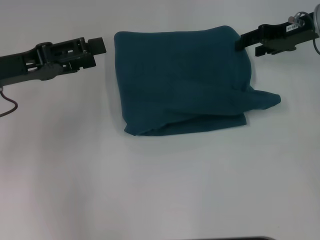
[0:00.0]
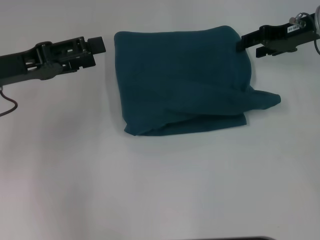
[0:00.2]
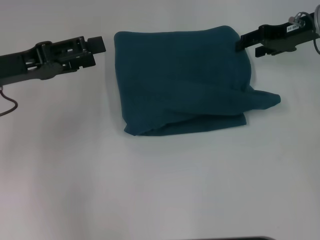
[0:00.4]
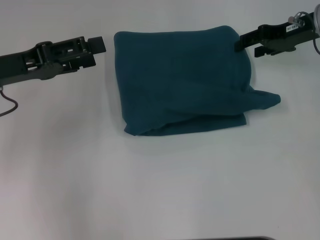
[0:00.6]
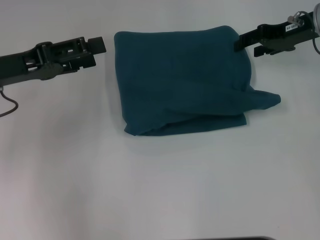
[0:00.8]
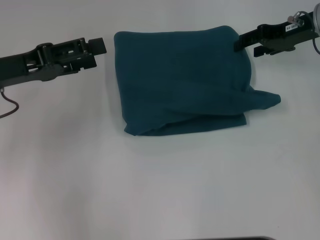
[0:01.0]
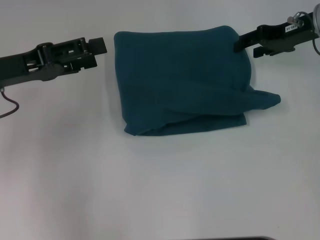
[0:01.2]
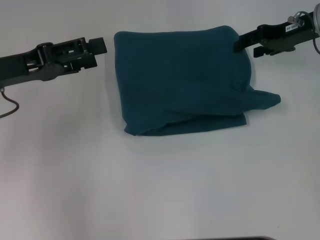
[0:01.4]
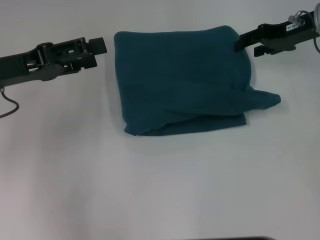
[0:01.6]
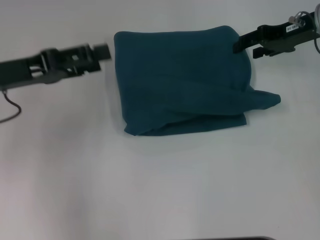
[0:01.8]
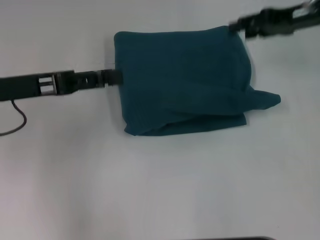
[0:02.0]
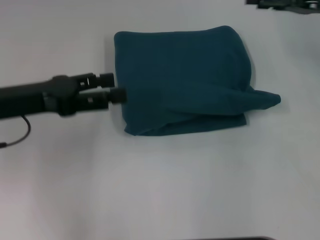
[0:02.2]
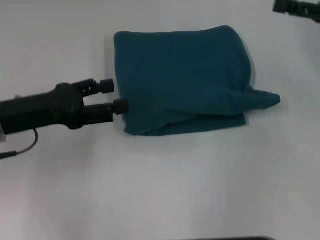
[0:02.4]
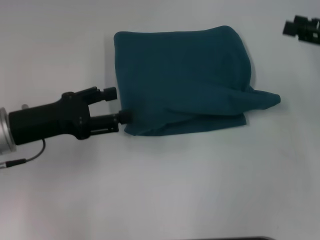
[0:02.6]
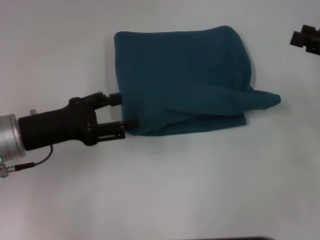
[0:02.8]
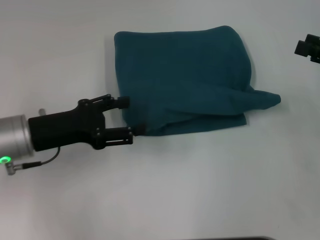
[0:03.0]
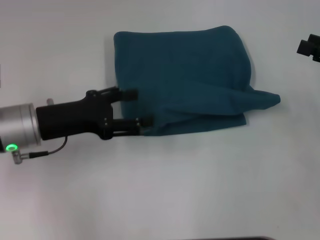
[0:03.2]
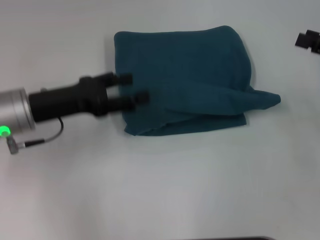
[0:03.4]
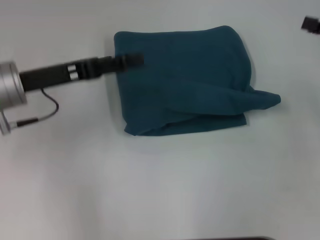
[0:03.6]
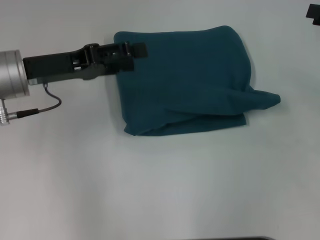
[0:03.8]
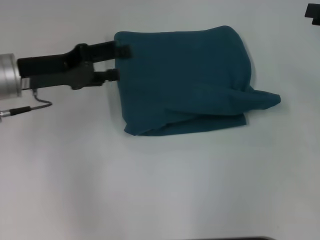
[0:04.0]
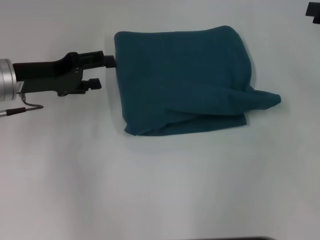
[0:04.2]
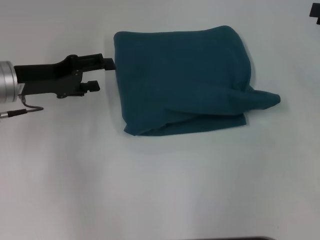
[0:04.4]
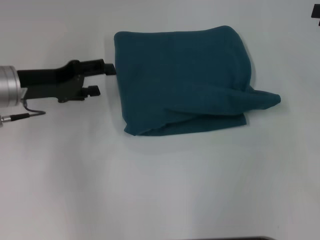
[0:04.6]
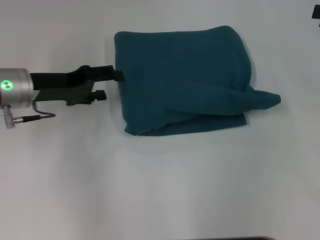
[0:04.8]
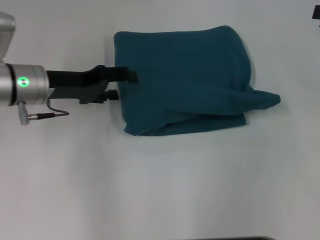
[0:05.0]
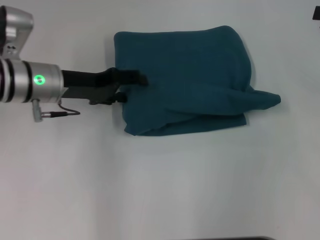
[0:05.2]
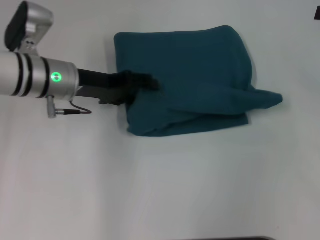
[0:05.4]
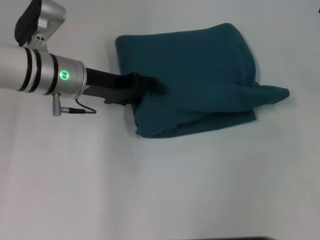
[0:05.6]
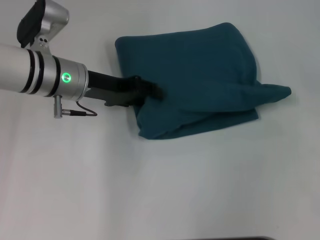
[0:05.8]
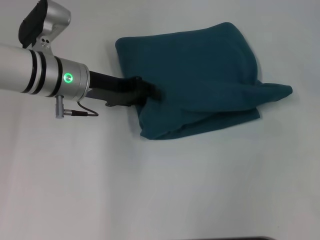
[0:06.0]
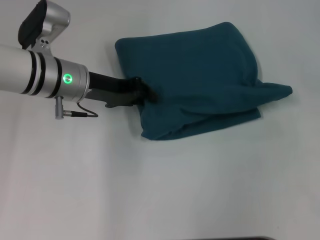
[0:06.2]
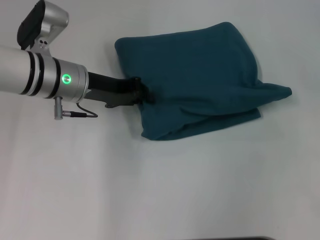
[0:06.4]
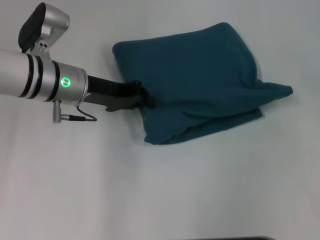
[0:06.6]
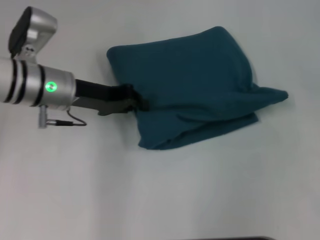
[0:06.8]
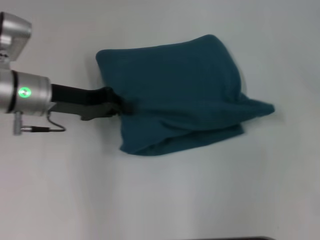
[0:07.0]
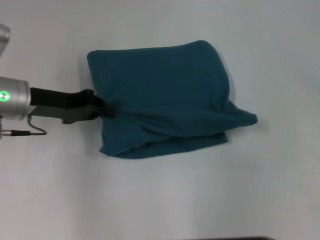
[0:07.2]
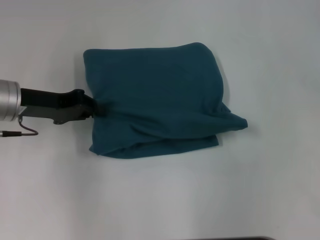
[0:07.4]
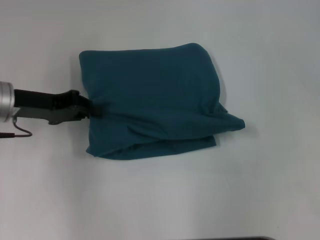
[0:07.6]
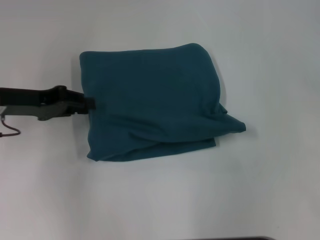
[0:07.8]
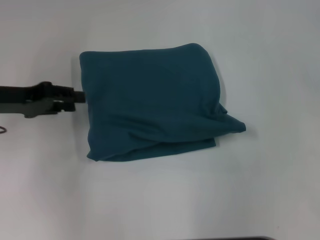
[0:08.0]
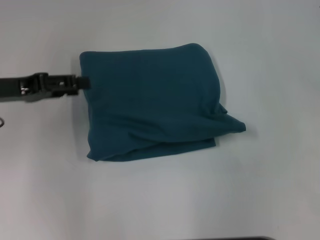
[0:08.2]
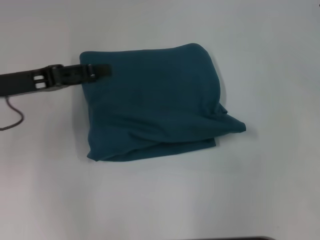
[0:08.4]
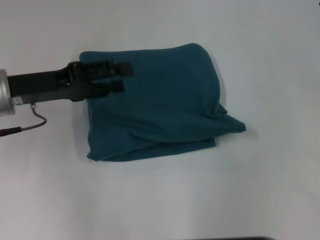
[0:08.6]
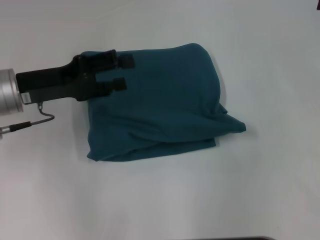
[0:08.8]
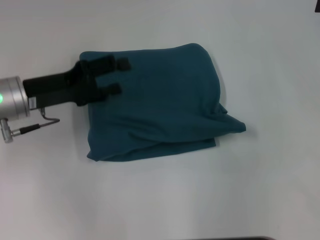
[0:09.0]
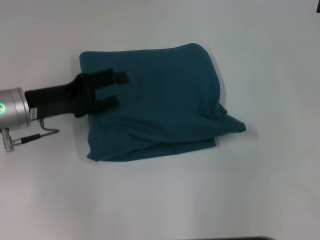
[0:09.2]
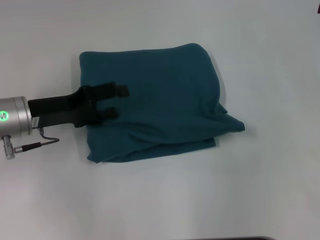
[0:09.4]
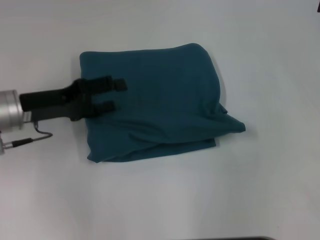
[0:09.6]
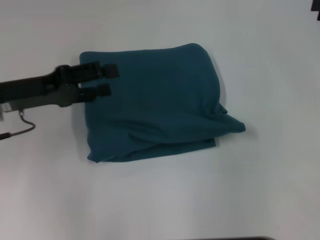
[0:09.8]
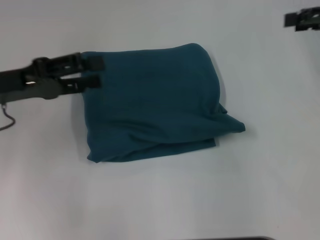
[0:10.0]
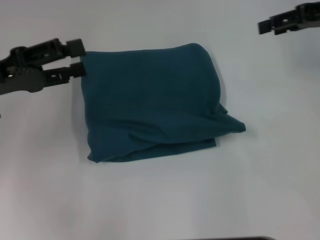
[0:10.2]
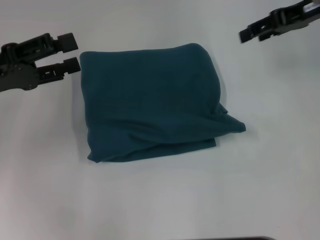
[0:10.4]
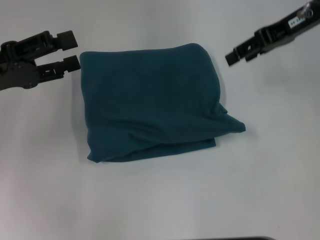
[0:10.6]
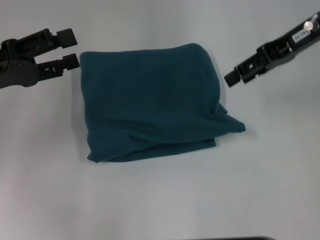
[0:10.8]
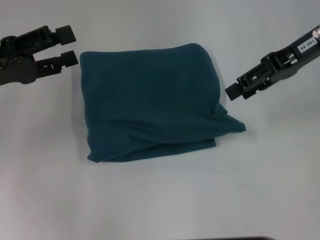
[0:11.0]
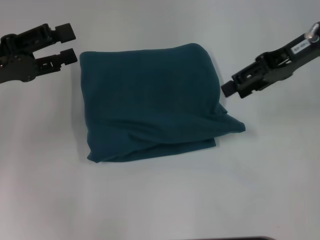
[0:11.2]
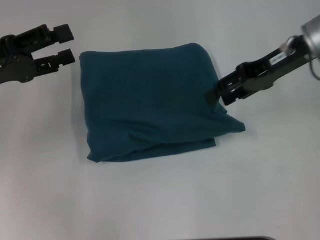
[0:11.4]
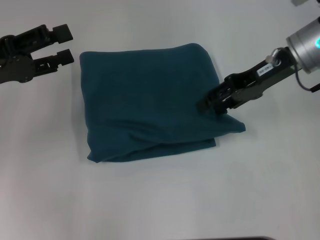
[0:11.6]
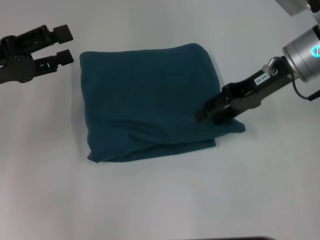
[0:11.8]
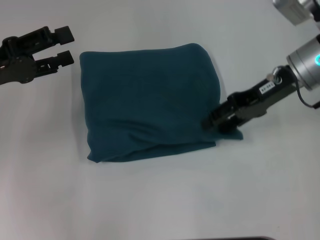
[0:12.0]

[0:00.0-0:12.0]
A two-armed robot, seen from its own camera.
0:00.0 to 0:01.6: Both grippers stay about where they are.
0:01.6 to 0:03.0: The left gripper moves downward, some 5 cm. Meanwhile the right gripper shifts about 15 cm backward and to the right.
0:03.0 to 0:04.4: The grippers both shift forward by about 5 cm.
0:04.4 to 0:06.0: The left gripper travels to the right by approximately 10 cm.
0:06.0 to 0:07.6: The left gripper shifts some 10 cm to the left, and closes.
0:07.6 to 0:09.0: The left gripper opens up.
0:09.0 to 0:10.4: The right gripper travels to the left and forward by approximately 15 cm. Meanwhile the left gripper moves to the left and upward, some 10 cm.
0:10.4 to 0:12.0: The right gripper travels downward by about 5 cm.

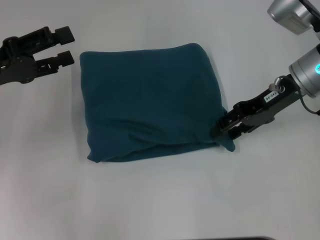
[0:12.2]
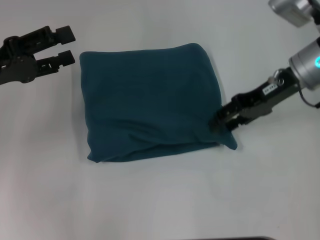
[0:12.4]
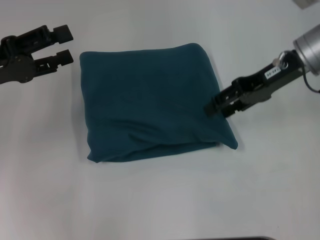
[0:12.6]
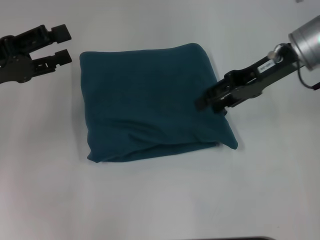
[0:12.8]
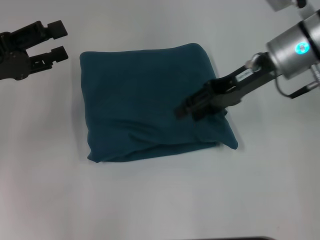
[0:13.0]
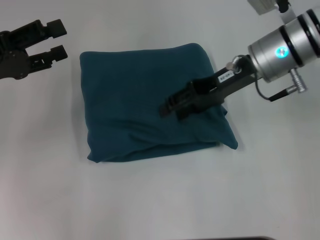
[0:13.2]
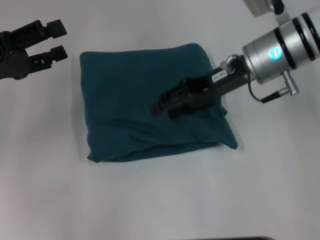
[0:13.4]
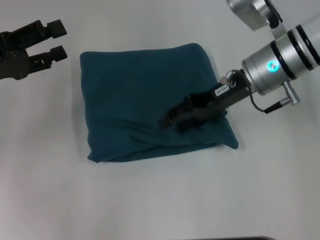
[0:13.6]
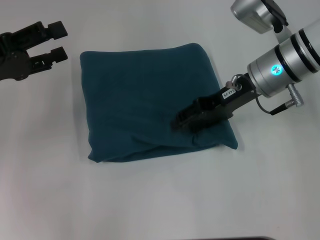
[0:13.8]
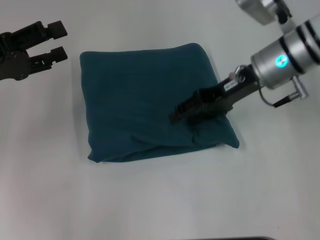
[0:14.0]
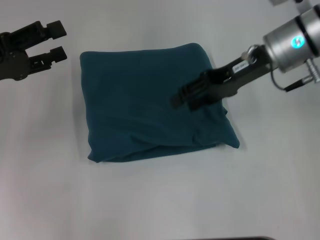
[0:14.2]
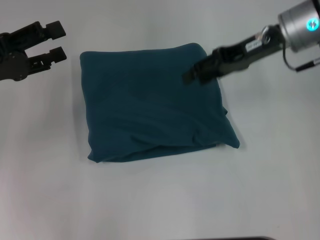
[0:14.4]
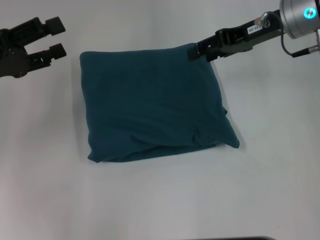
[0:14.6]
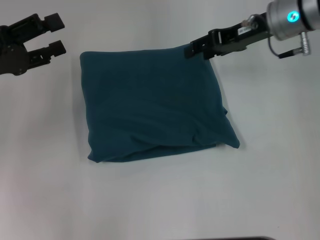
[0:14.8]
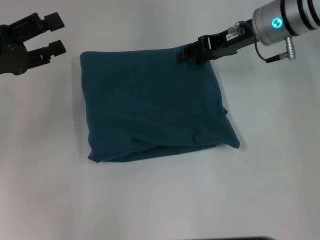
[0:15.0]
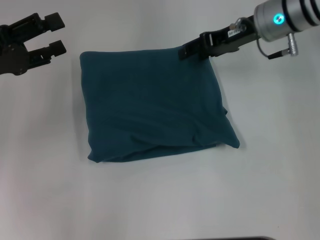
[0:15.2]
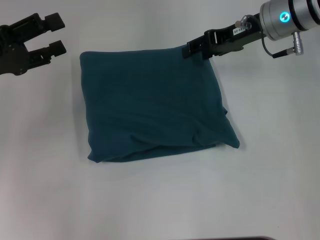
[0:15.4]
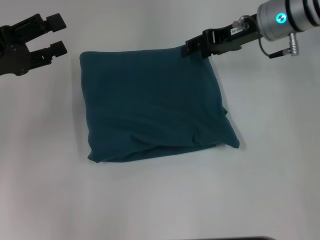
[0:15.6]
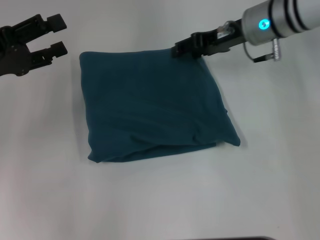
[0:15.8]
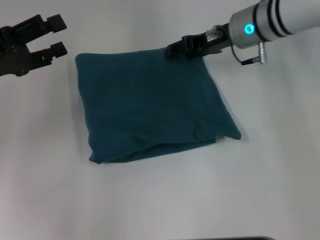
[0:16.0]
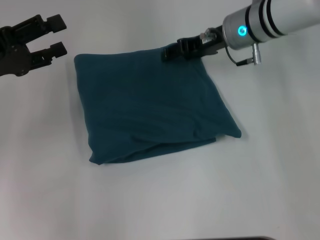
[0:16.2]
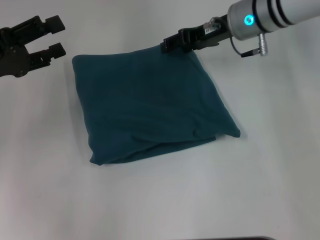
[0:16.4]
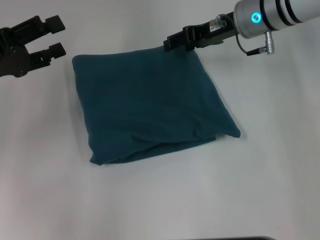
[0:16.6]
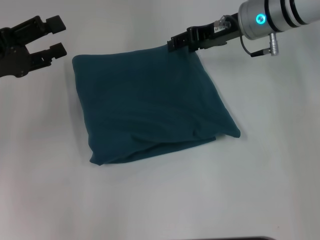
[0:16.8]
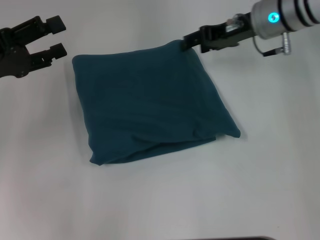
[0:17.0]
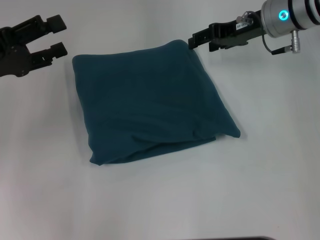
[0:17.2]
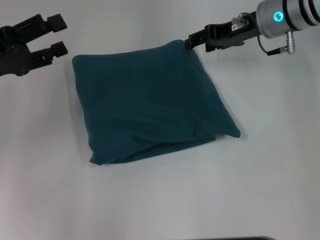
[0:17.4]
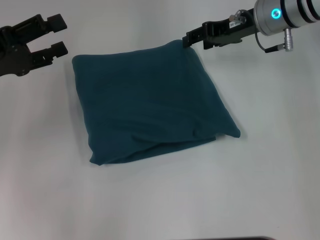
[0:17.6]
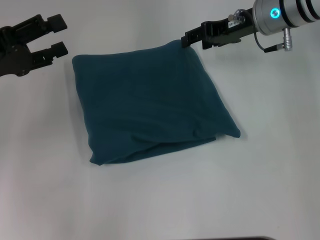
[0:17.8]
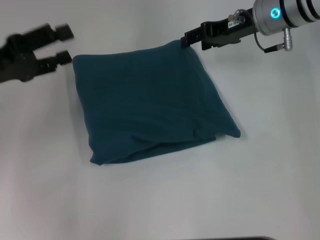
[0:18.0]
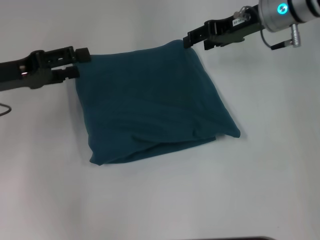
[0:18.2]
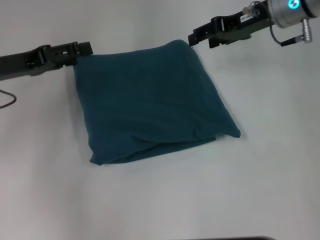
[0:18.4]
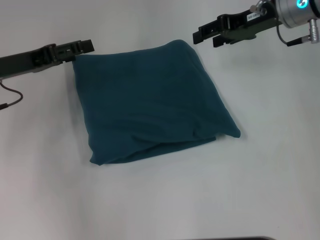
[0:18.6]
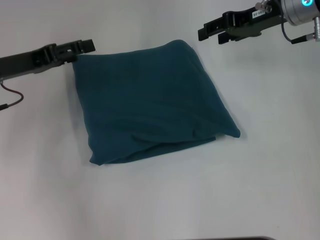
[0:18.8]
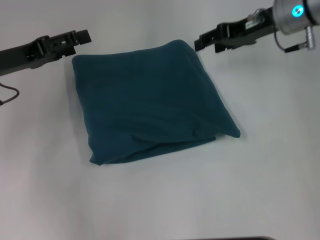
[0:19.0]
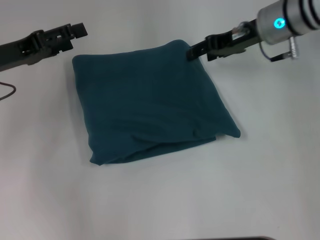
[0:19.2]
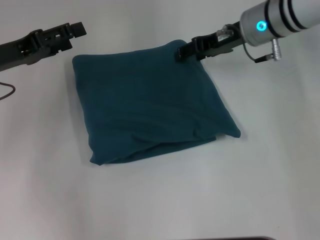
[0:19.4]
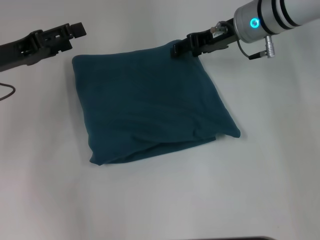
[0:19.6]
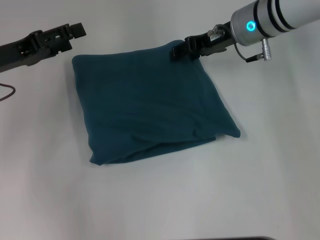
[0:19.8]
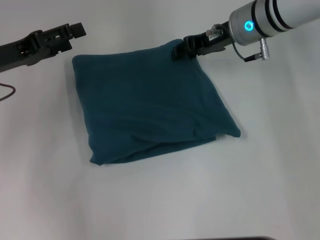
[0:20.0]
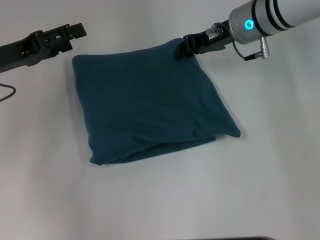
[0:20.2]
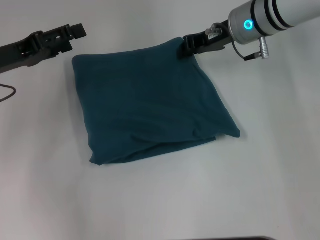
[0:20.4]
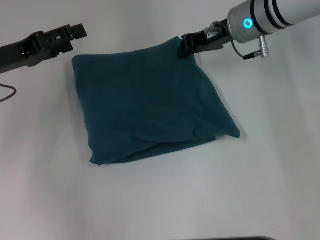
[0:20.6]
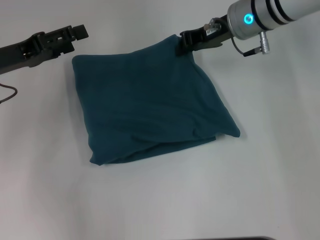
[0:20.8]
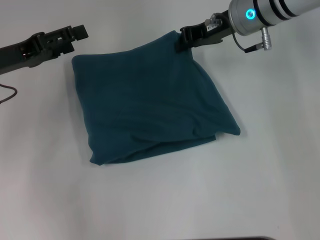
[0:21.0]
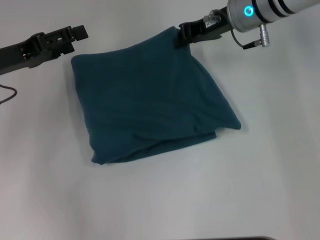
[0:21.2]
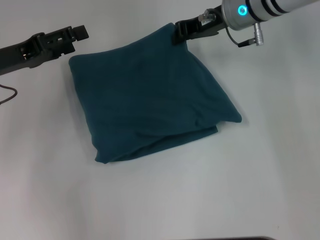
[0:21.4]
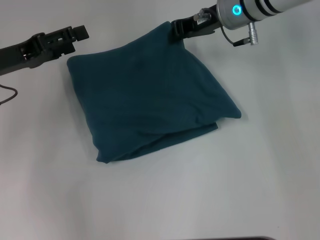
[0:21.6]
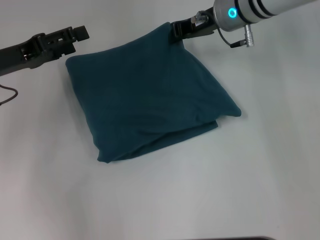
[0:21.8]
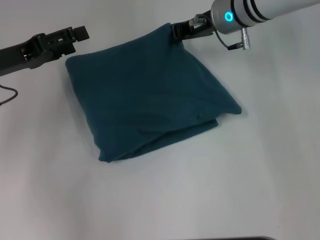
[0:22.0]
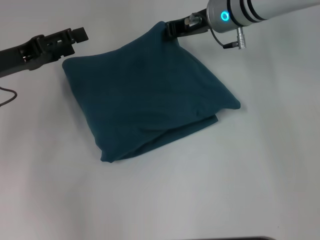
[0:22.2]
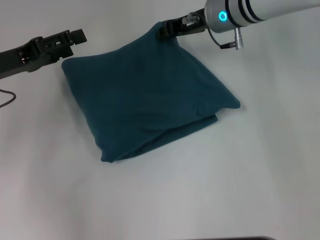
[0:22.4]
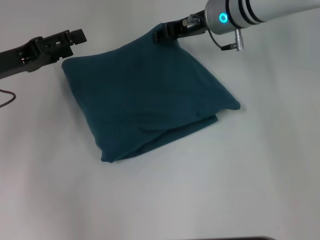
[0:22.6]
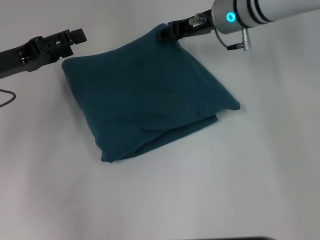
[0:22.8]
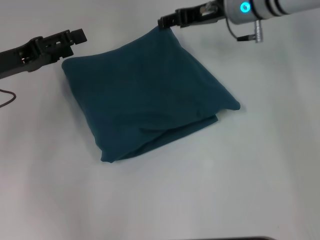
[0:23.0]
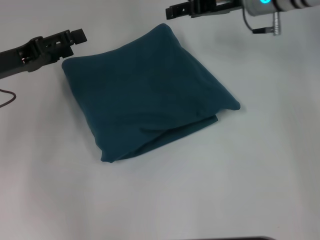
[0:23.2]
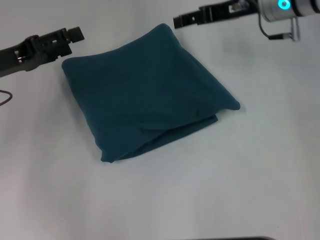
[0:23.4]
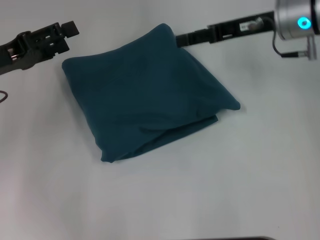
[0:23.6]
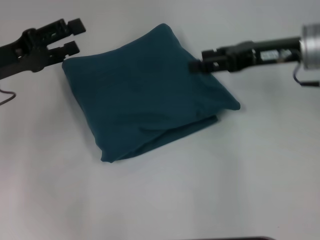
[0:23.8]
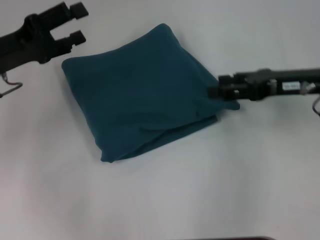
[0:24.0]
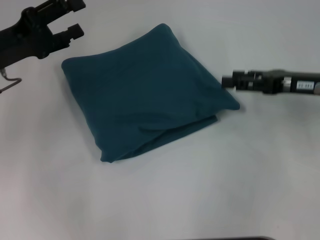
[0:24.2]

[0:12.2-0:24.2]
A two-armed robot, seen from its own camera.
0:12.2 to 0:13.8: The right gripper moves to the left, approximately 5 cm.
0:13.8 to 0:15.2: The right gripper moves forward, about 5 cm.
0:15.2 to 0:18.2: The grippers stay close to where they were, moving slightly.
0:18.2 to 0:19.8: The grippers stay close to where they were, moving slightly.
0:19.8 to 0:21.2: The right gripper closes.
0:21.2 to 0:22.6: The grippers make only small movements.
0:22.6 to 0:24.2: The right gripper travels to the right and backward by about 20 cm, and opens its fingers.
